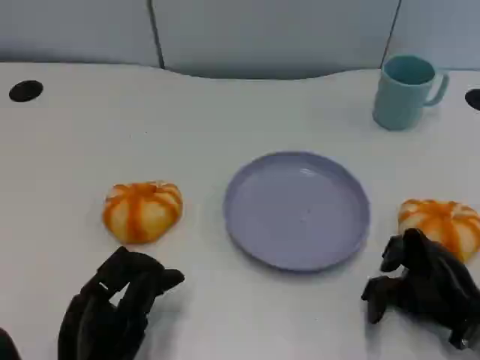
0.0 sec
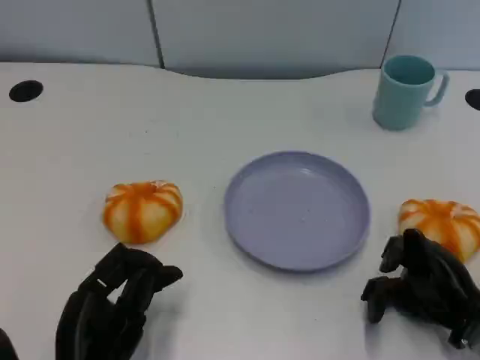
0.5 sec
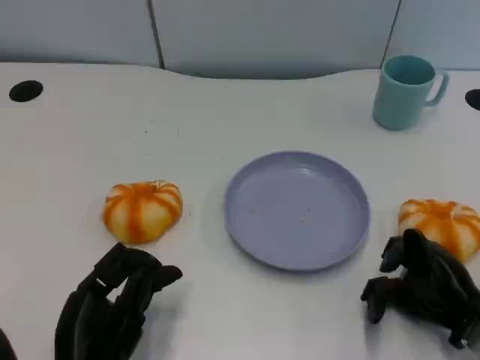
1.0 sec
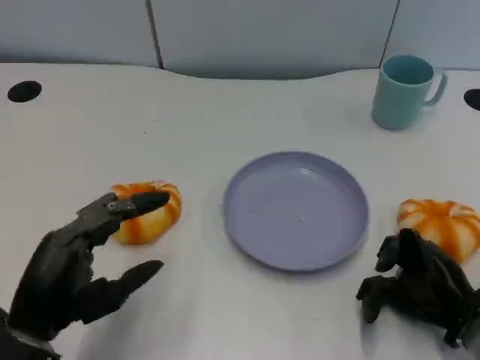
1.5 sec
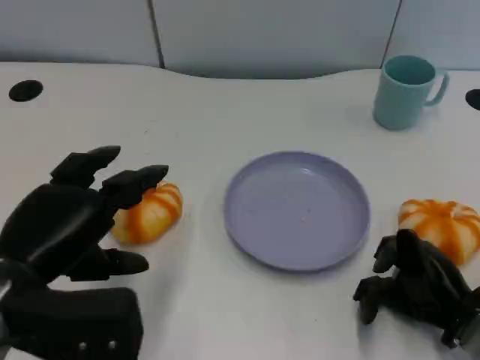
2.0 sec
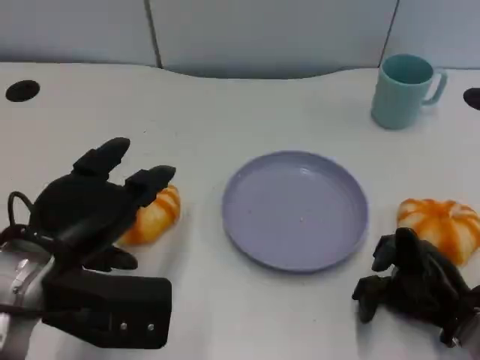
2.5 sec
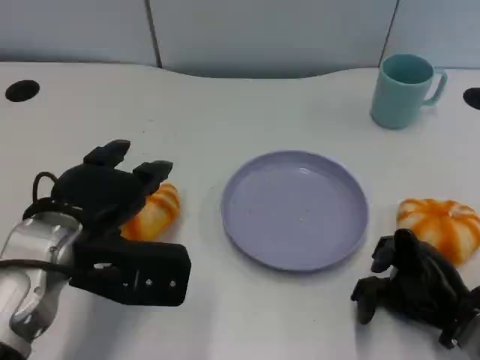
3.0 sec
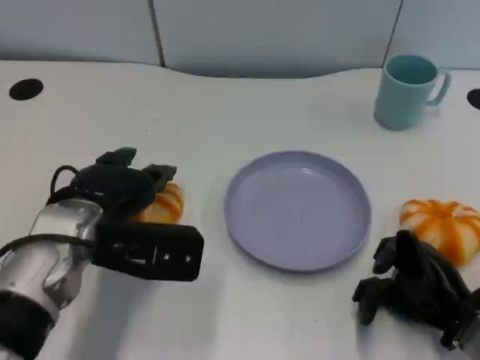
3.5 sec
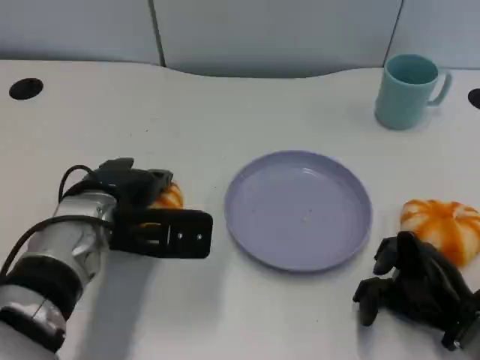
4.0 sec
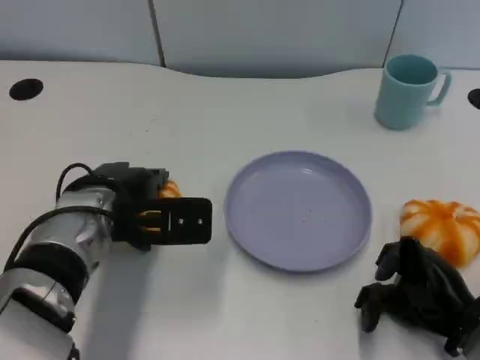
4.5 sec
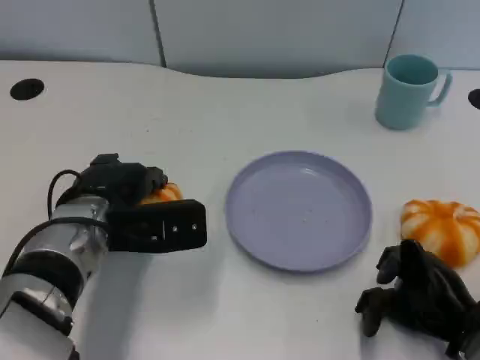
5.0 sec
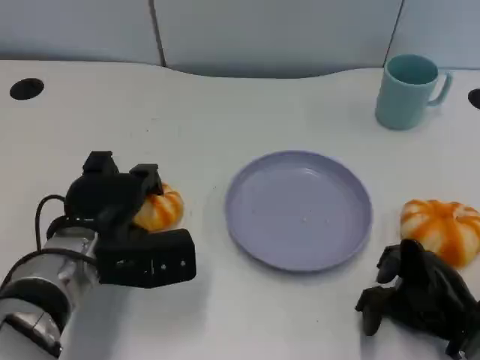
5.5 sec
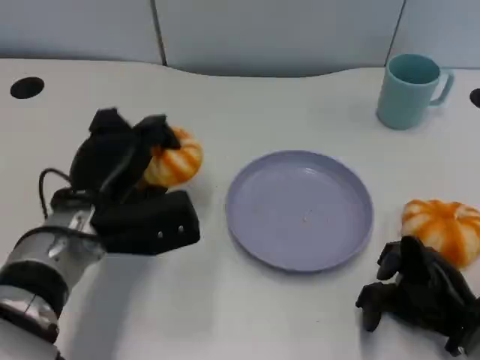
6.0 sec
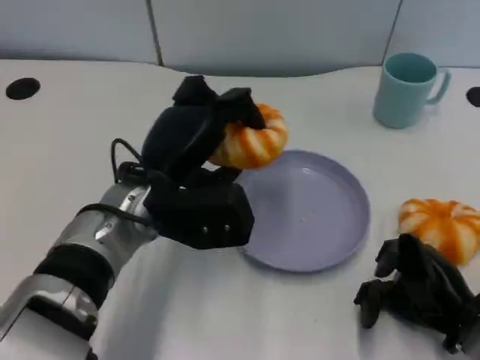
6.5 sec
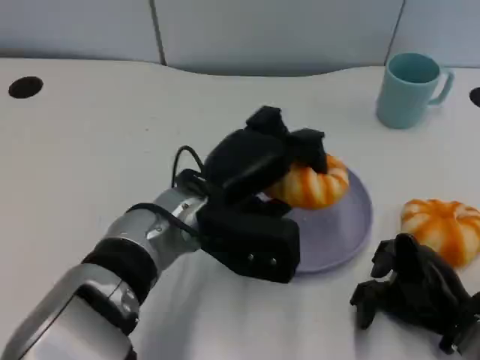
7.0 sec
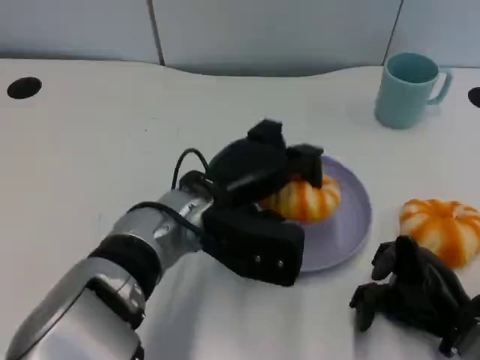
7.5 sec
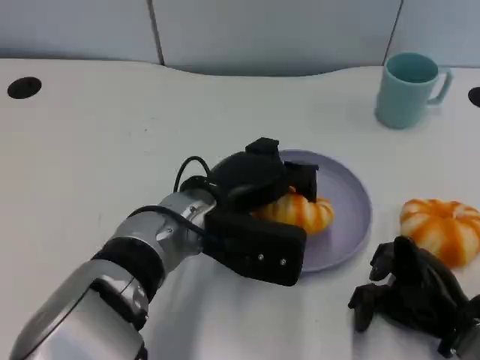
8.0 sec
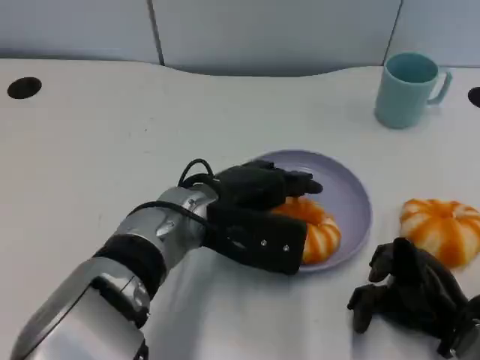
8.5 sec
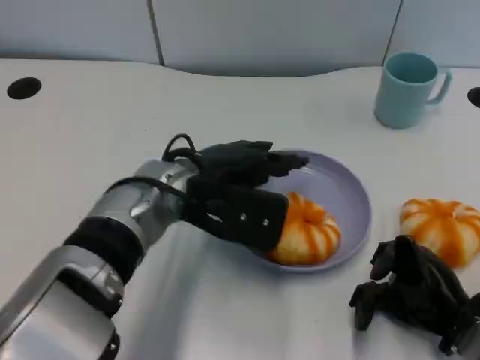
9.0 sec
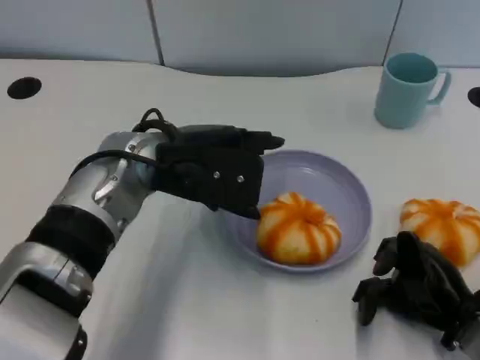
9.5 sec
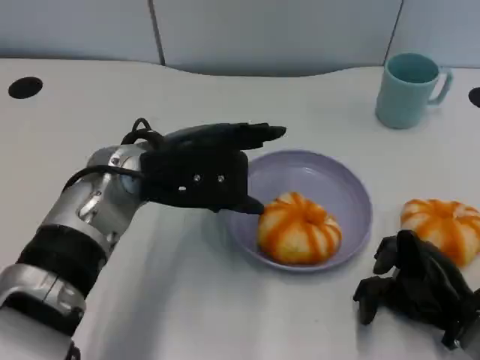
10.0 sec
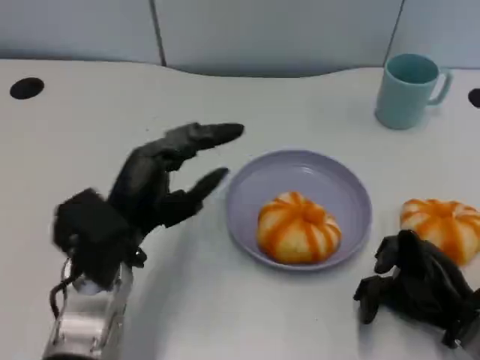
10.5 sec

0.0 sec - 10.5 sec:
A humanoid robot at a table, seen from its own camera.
Task of the whole recording: Grasp the bread from the table and place it into the plate.
0.0 sec - 2.0 sec: The left hand moves upward and forward, about 15 cm.
2.0 sec - 4.0 sec: The left hand heads forward and to the right, covering some 15 cm.
4.0 sec - 6.5 sec: The left hand is displaced to the right by about 5 cm.
8.5 sec - 10.5 sec: The left hand moves to the left and backward, roughly 10 cm.

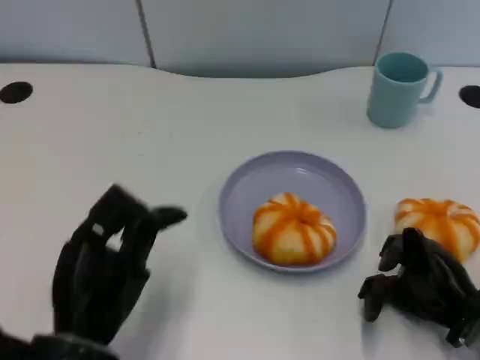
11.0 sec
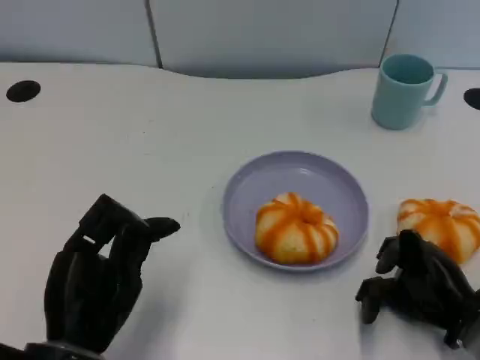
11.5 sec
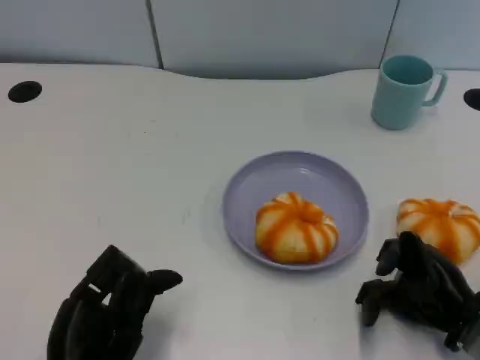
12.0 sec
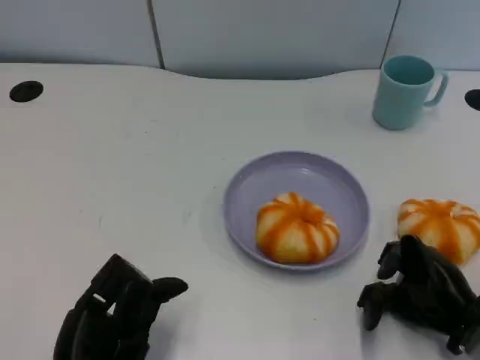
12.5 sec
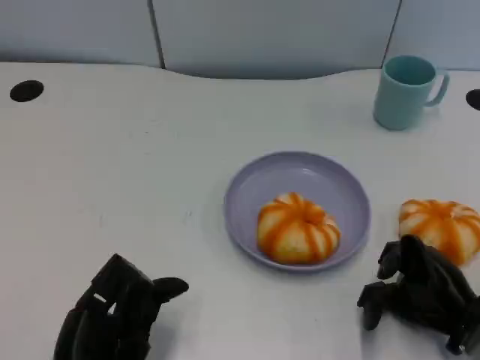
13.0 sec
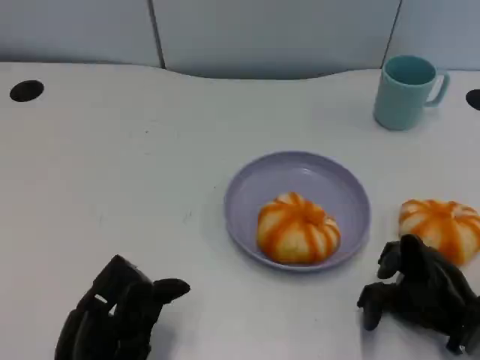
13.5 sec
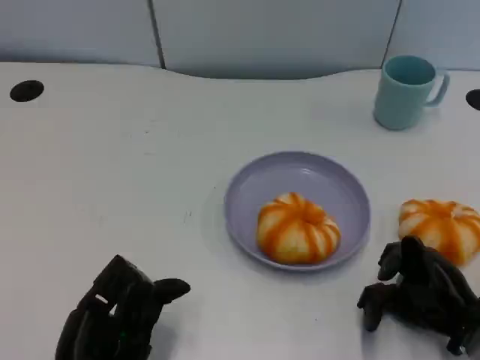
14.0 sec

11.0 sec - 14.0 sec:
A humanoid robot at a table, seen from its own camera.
Task of the whole recording: Grasp the bread from the table and place it into the plate.
11.0 sec - 12.5 sec: The hands make only small movements.
12.5 sec - 14.0 sec: Neither hand changes place.

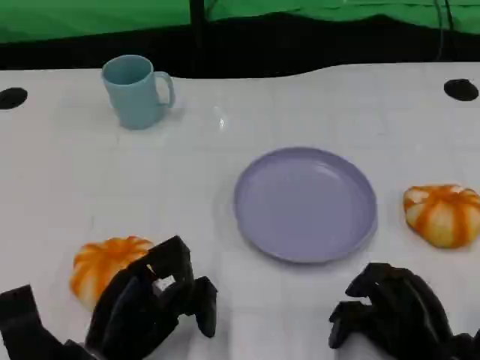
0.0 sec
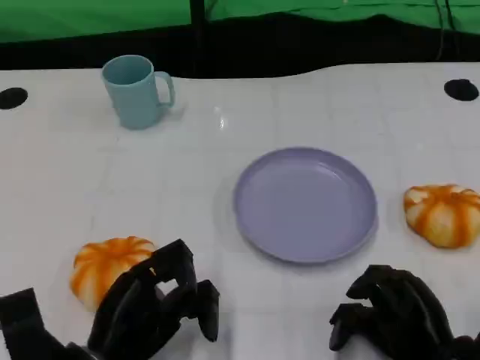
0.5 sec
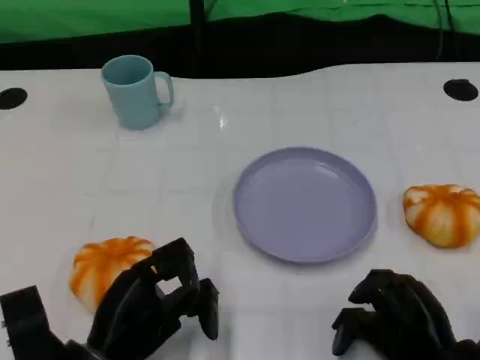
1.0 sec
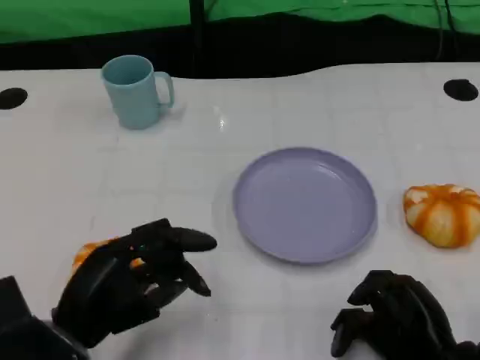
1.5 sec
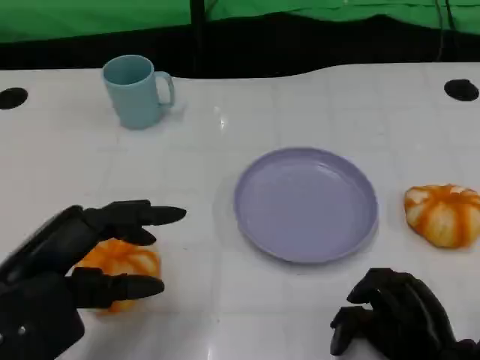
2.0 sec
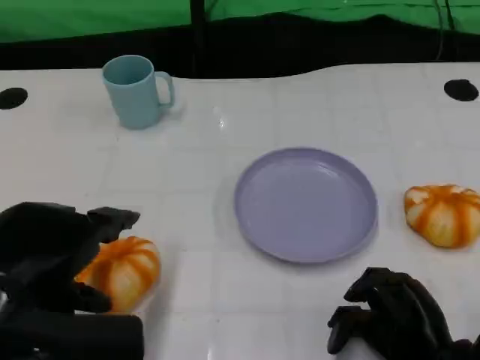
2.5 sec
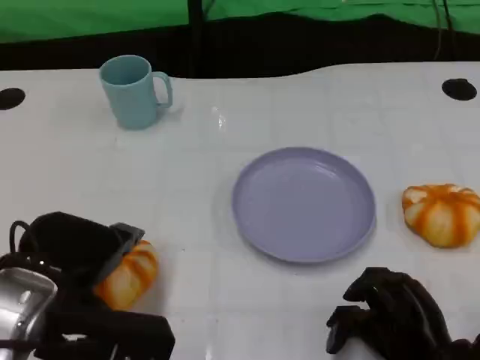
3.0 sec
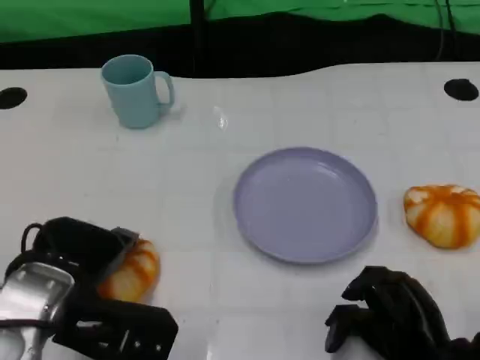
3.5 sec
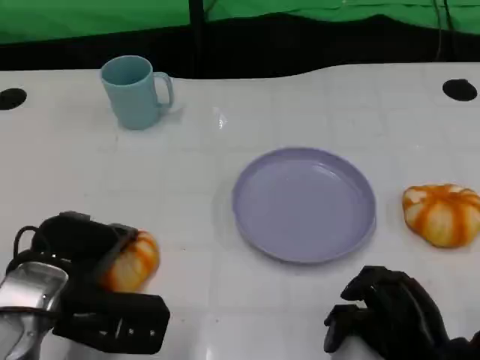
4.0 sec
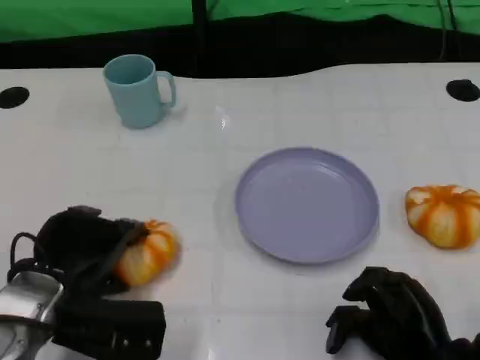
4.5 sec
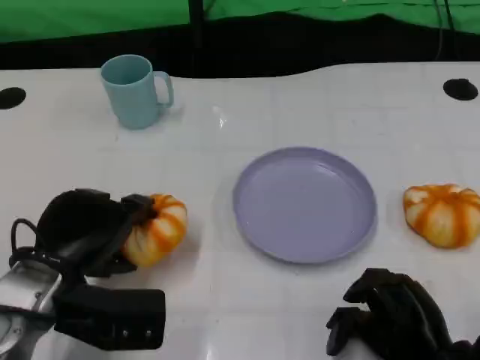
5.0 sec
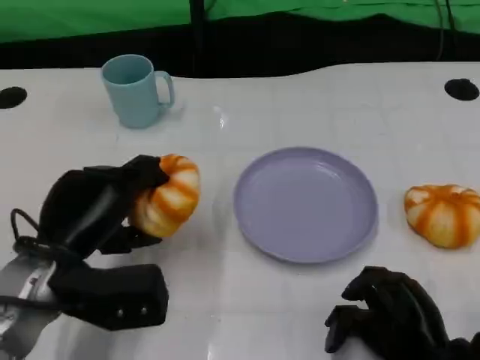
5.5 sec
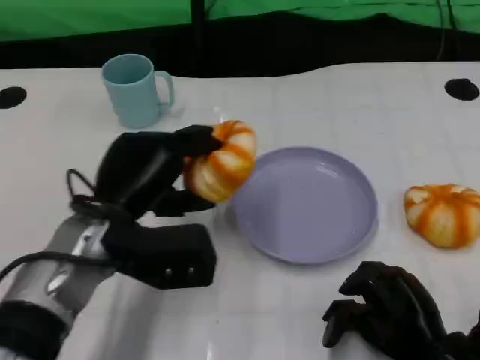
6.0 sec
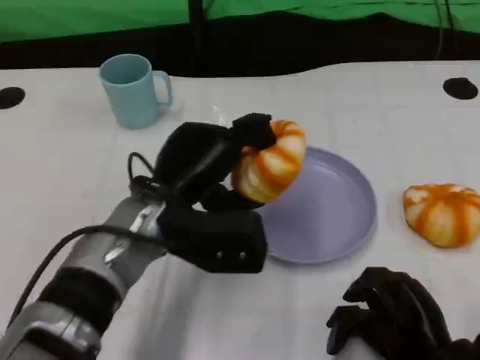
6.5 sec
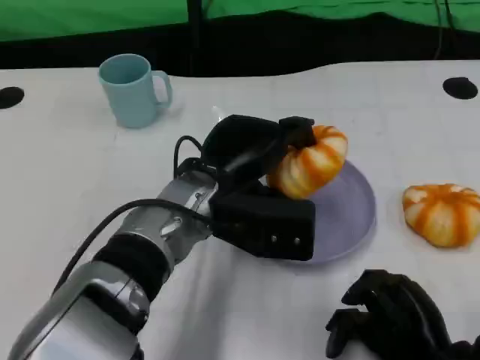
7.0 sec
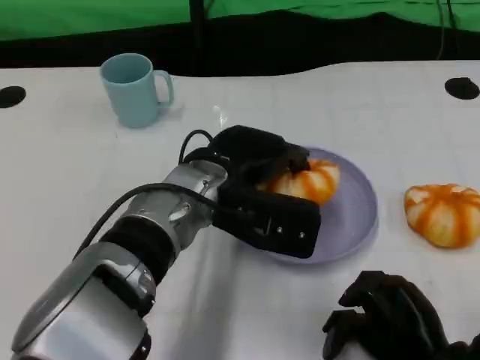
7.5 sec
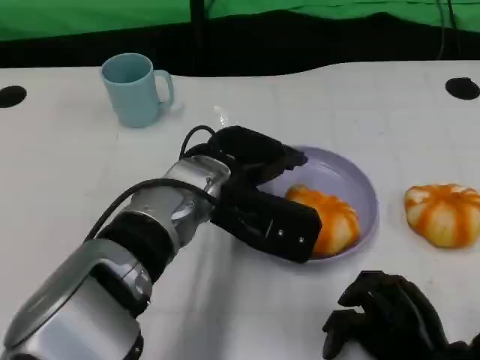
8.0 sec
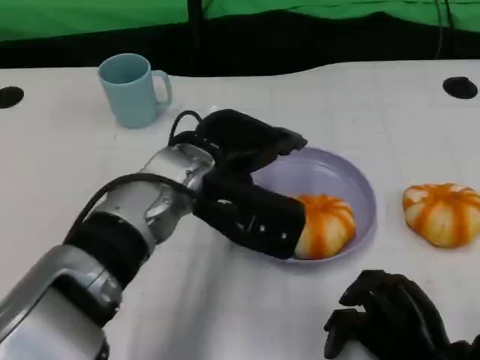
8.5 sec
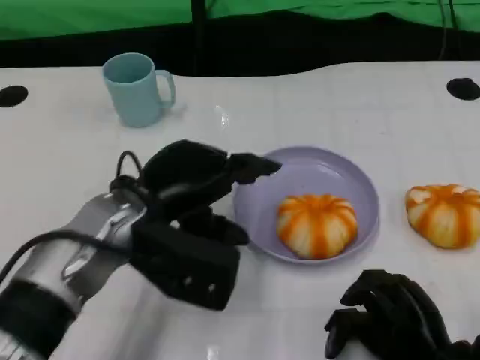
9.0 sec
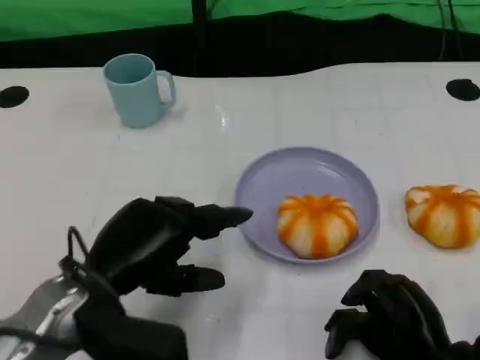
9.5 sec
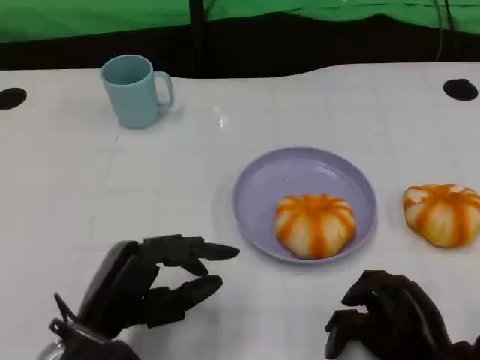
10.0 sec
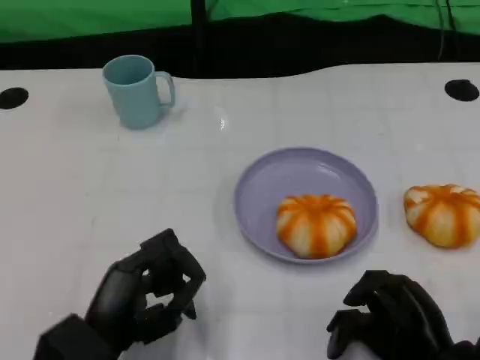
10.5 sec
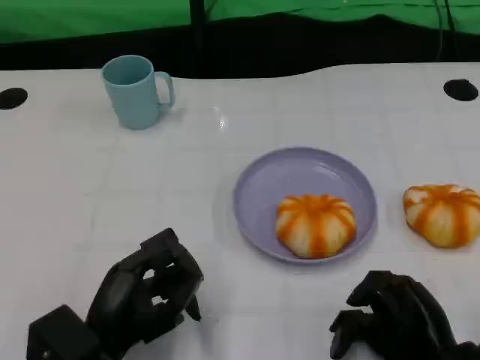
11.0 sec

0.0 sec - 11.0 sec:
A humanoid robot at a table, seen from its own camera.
Task of the whole recording: Grasp the bread from the table and place it into the plate.
0.0 sec - 2.0 sec: The left hand moves upward and to the left, approximately 15 cm.
2.0 sec - 3.5 sec: The left hand moves roughly 5 cm.
5.5 sec - 7.5 sec: The left hand goes about 15 cm to the right and forward.
7.5 sec - 9.0 sec: The left hand heads to the left, covering approximately 10 cm.
9.0 sec - 11.0 sec: The left hand shifts about 15 cm backward and downward.

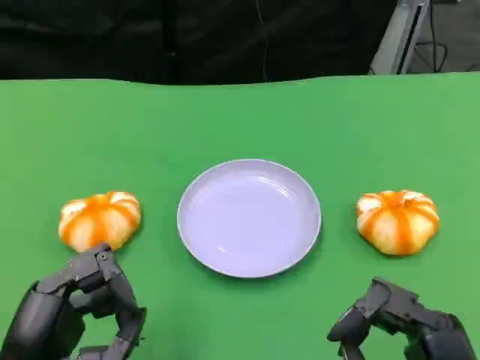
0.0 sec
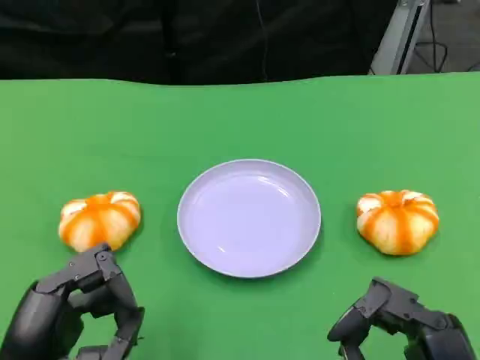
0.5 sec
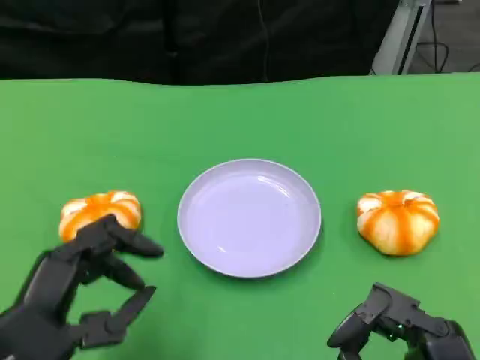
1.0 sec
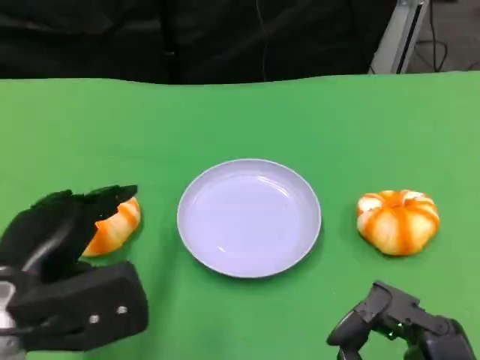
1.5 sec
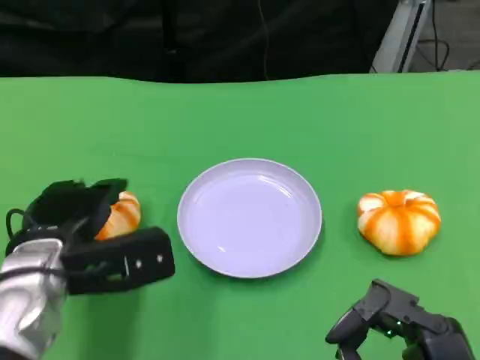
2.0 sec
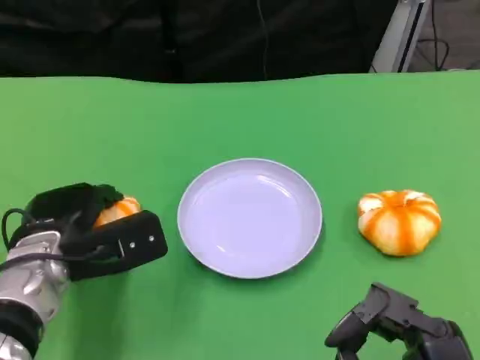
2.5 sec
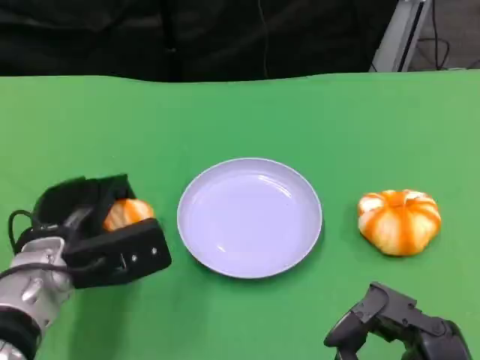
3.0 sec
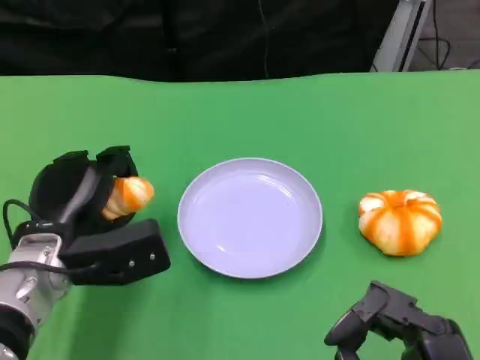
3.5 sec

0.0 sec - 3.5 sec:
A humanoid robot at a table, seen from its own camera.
Task of the whole recording: Grasp the bread from the table and place it into the plate.
0.0 sec - 2.0 sec: The left hand is displaced forward by roughly 15 cm.
